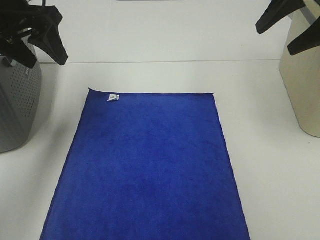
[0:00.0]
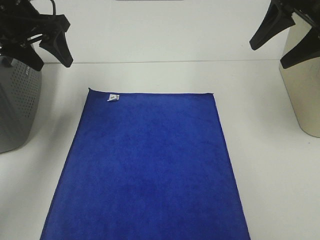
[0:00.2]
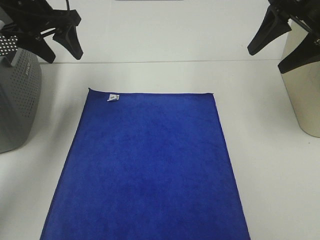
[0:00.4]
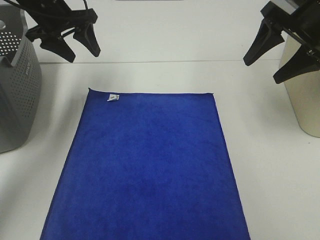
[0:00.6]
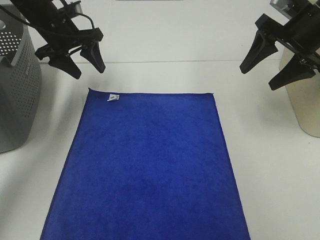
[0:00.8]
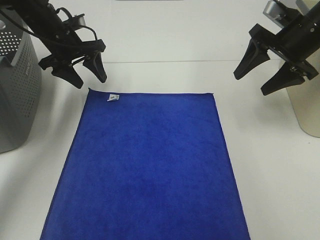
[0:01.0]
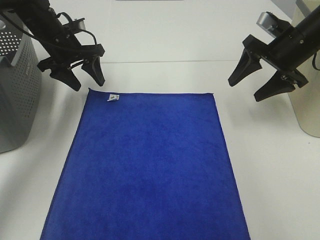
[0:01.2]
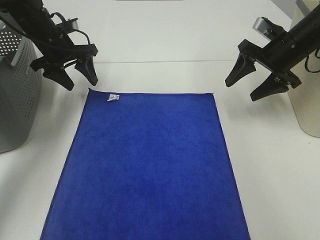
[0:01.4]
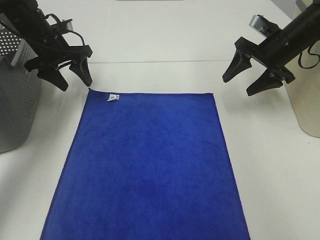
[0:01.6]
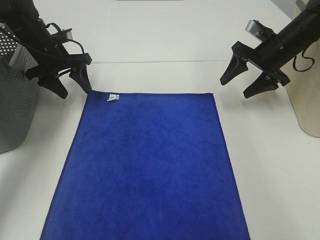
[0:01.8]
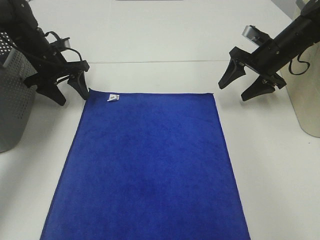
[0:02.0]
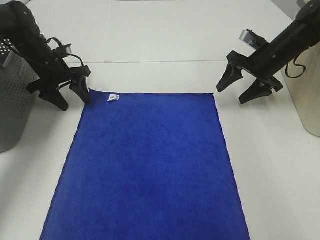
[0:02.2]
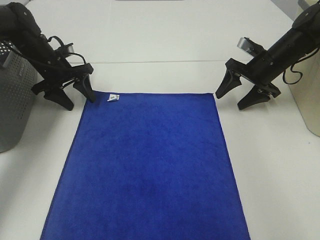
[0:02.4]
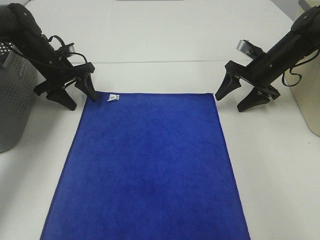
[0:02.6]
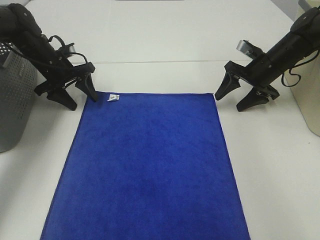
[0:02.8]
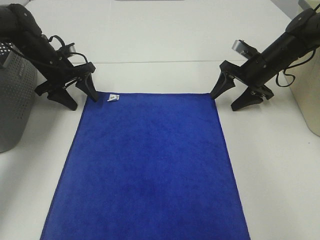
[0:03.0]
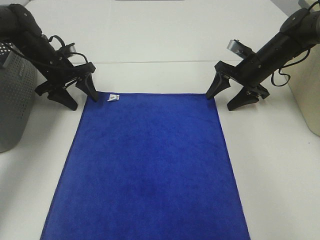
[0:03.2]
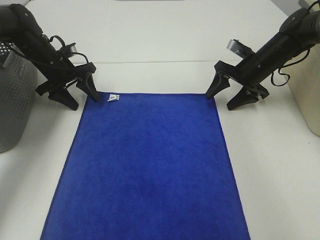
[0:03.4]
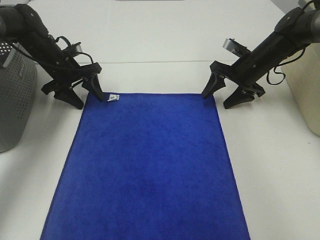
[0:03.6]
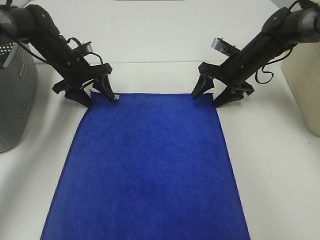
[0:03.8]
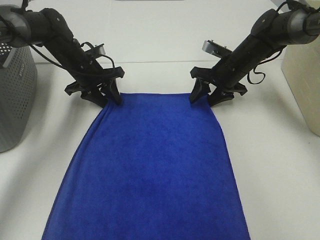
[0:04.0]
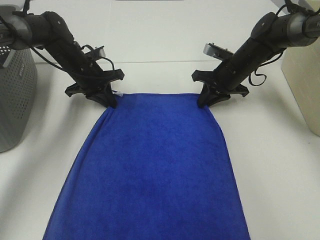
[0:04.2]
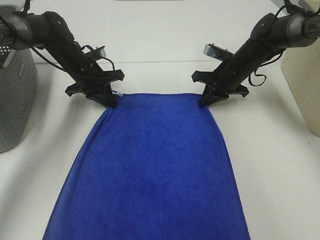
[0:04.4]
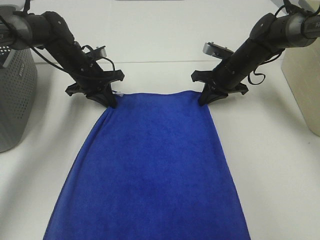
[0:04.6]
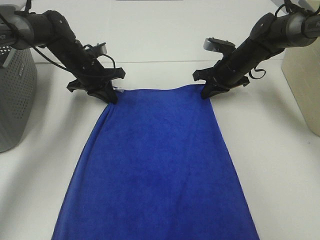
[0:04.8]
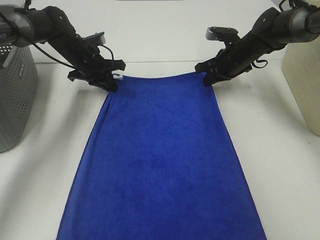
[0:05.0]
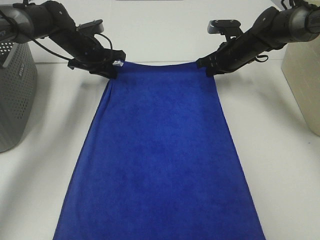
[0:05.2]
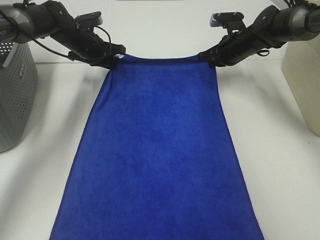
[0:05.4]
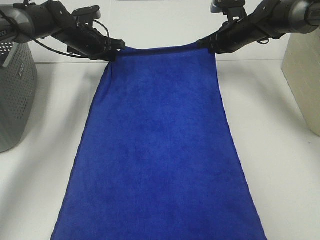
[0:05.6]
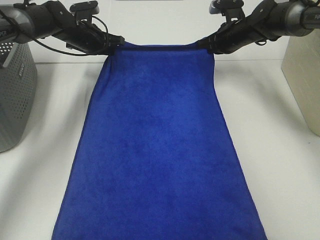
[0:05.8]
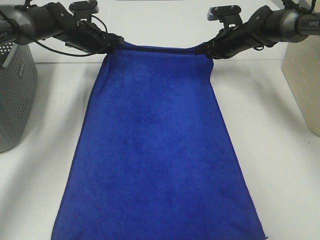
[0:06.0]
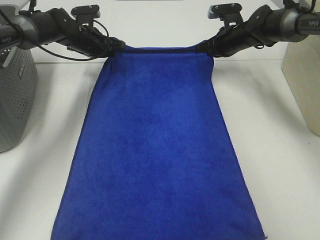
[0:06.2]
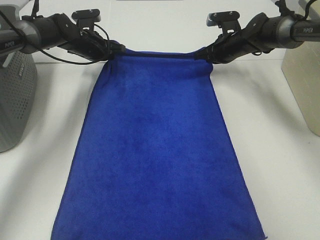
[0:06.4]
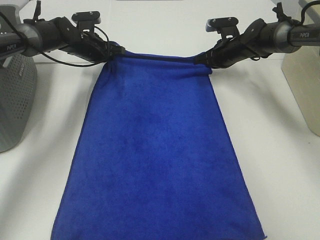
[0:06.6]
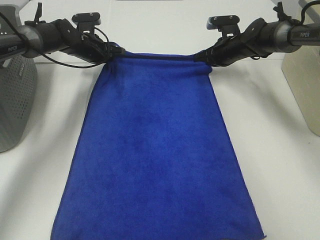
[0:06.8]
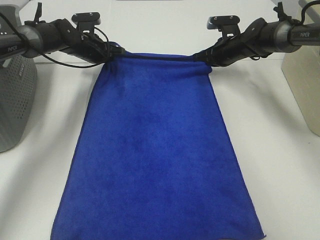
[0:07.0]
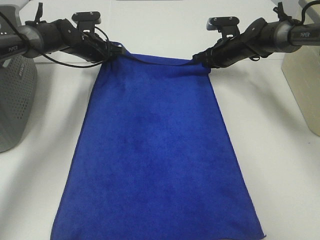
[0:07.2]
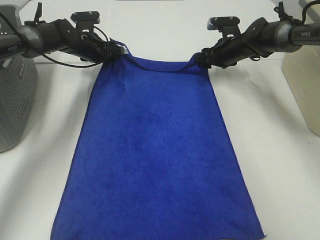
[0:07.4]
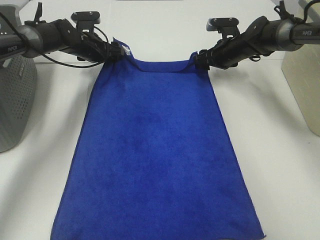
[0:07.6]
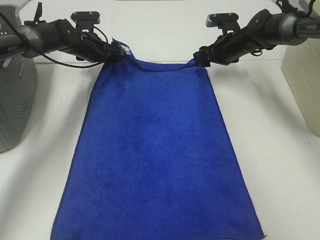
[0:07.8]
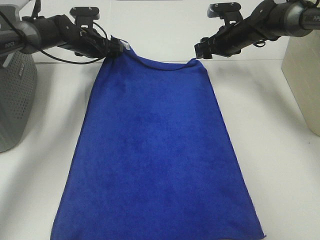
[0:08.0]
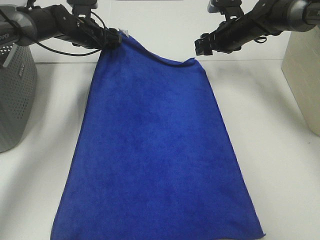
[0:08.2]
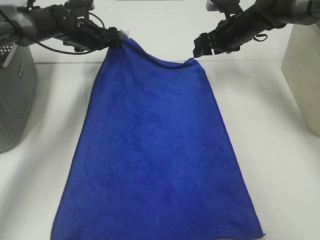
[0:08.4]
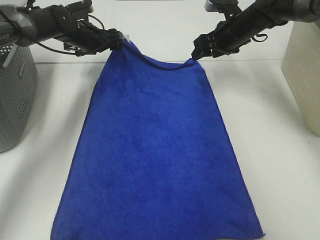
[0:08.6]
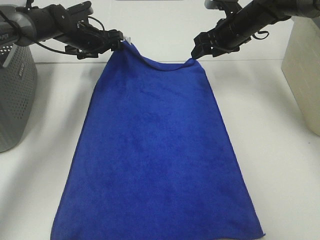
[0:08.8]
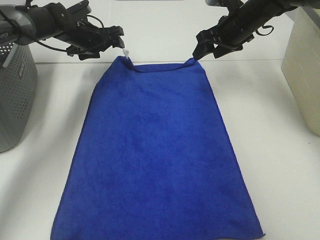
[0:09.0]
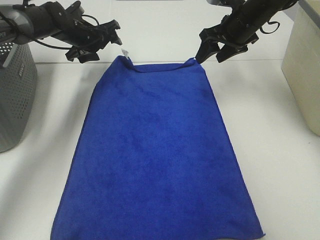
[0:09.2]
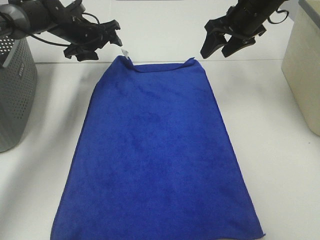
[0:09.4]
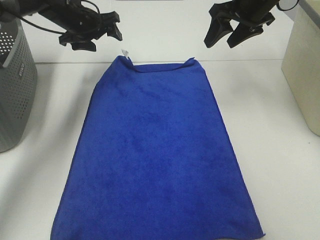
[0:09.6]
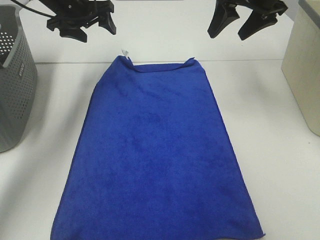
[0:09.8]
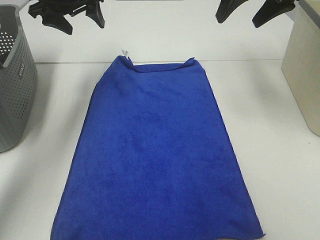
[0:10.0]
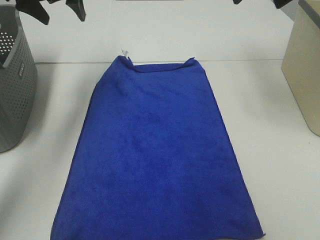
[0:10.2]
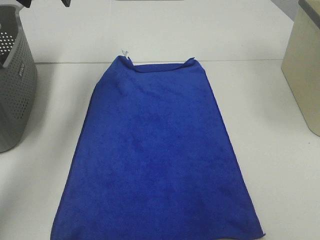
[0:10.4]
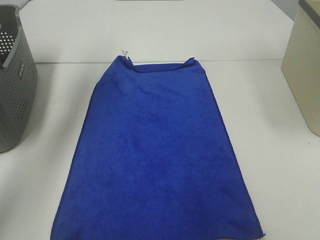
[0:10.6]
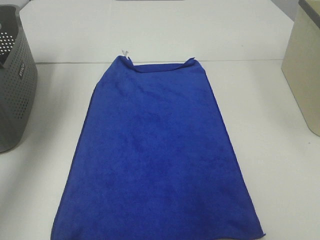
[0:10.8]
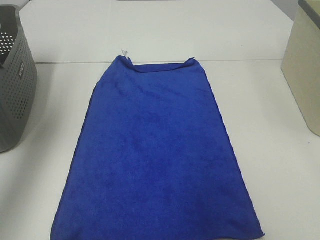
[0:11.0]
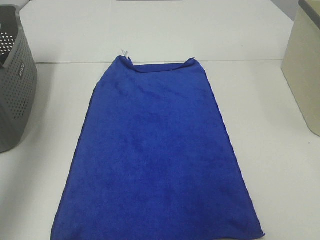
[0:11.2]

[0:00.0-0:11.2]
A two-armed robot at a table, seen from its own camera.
Task of the whole recording: Remove the towel and place it.
Step, 0:00.0 to 0:02.4: Left hand:adjust the blue towel.
Step, 0:00.0 to 0:02.4: Right hand:adjust the blue towel.
0:00.0 to 0:01.6: The grippers both shift downward and forward by approximately 20 cm.
0:01.6 to 0:03.2: The grippers both shift downward by about 5 cm.
0:03.2 to 0:04.8: The right gripper moves about 5 cm, and closes up, while the left gripper heads to the right, covering roughly 5 cm, and closes up.
0:04.8 to 0:06.4: Both grippers move forward, approximately 5 cm.
0:06.4 to 0:08.0: The right gripper opens its fingers. The left gripper opens.
0:08.0 to 0:09.6: The left gripper goes about 10 cm upward. The right gripper moves upward and backward, about 15 cm.
0:09.6 to 0:11.2: Both grippers move backward and upward, some 40 cm.

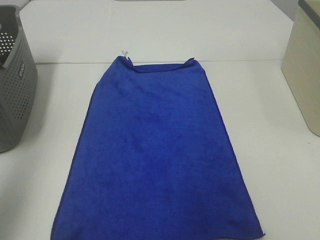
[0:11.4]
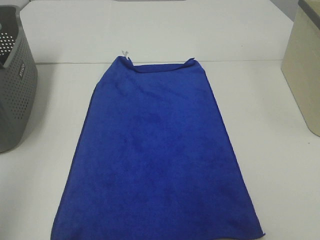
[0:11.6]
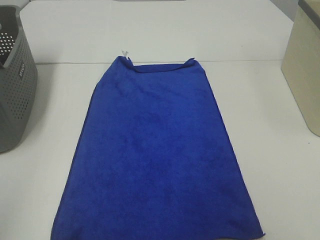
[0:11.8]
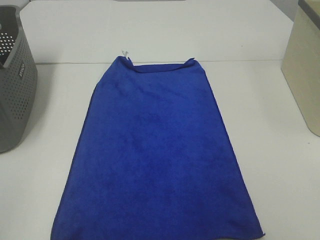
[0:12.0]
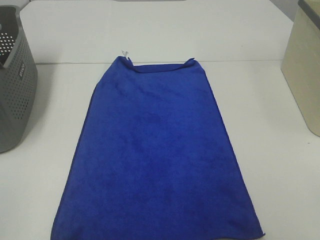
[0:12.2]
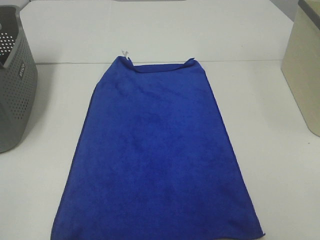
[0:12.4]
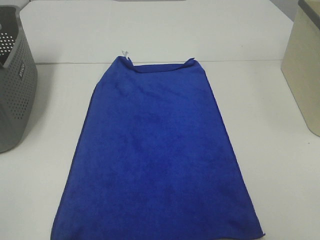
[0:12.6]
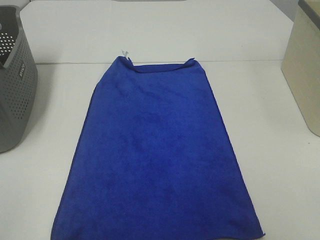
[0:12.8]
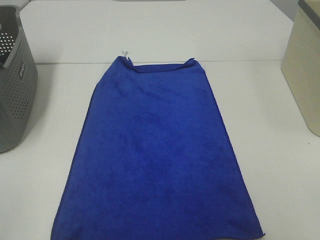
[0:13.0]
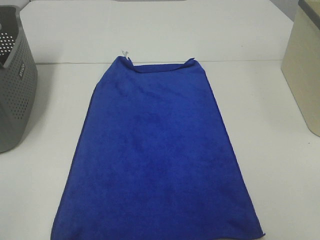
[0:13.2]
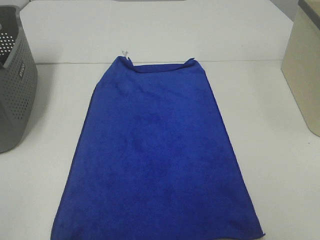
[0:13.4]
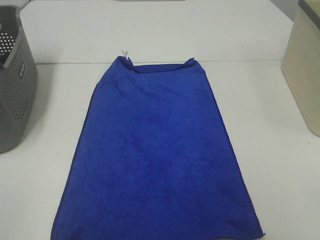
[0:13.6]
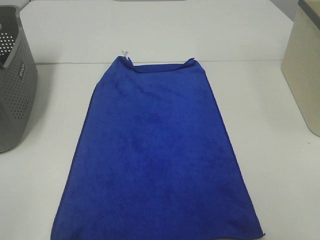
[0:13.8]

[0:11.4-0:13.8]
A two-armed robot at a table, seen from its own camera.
Task of the whole recording: Remove the towel and place it.
0:11.4 to 0:12.6: The left gripper is displaced backward and downward by some 20 cm.

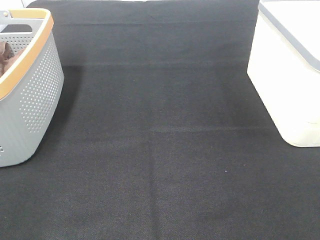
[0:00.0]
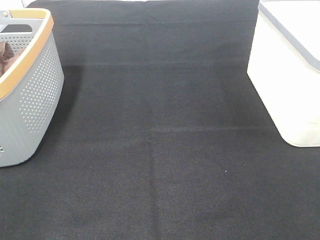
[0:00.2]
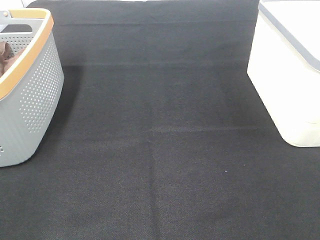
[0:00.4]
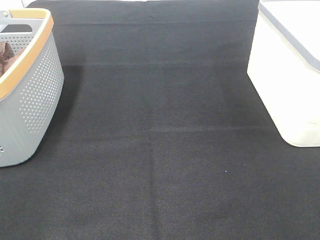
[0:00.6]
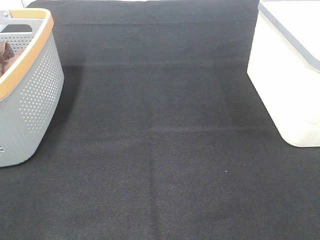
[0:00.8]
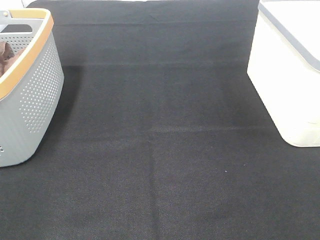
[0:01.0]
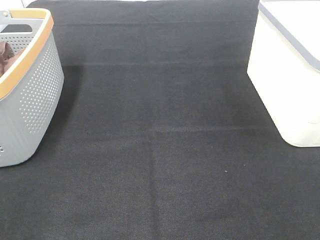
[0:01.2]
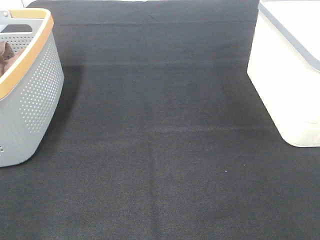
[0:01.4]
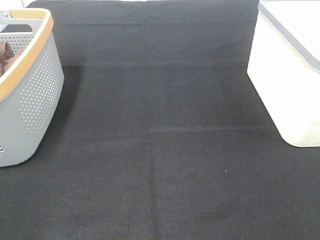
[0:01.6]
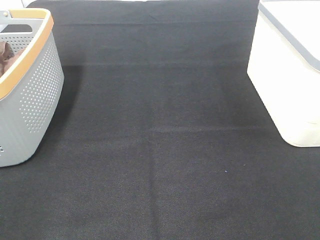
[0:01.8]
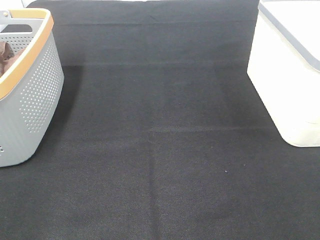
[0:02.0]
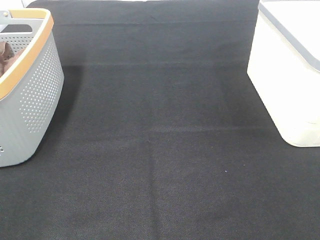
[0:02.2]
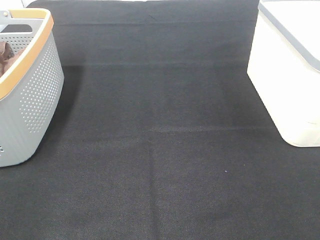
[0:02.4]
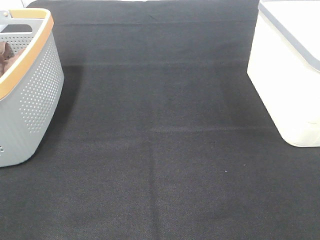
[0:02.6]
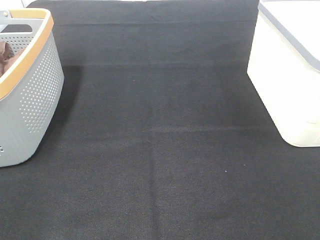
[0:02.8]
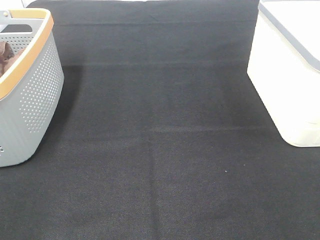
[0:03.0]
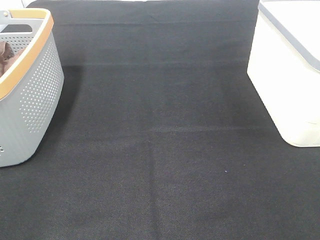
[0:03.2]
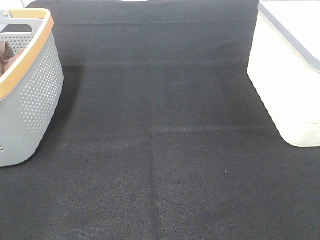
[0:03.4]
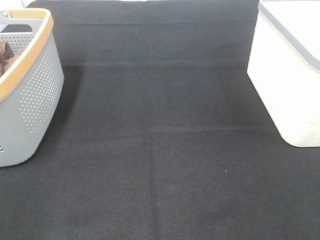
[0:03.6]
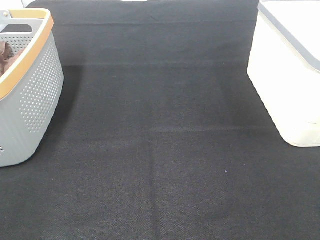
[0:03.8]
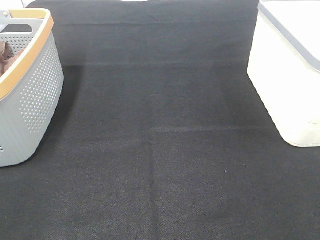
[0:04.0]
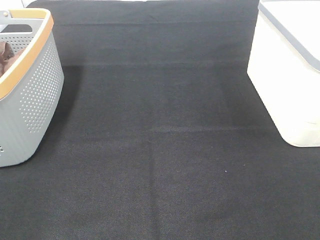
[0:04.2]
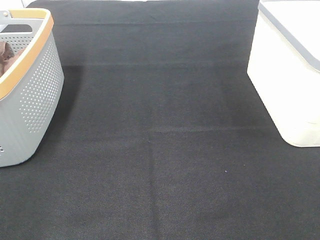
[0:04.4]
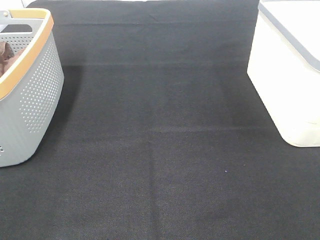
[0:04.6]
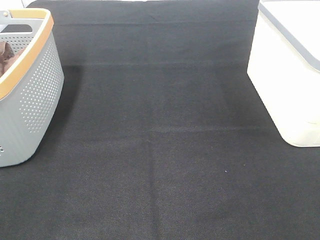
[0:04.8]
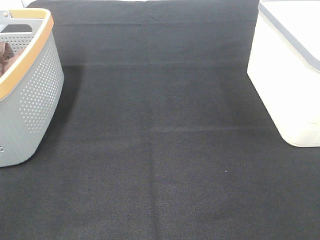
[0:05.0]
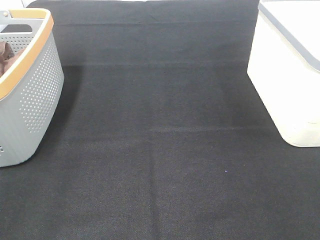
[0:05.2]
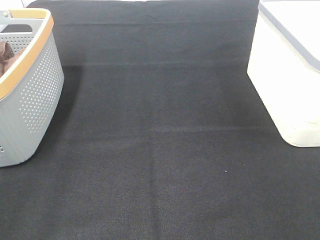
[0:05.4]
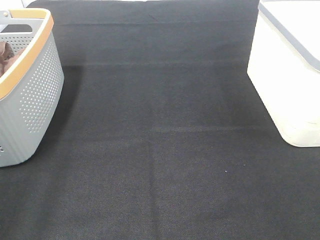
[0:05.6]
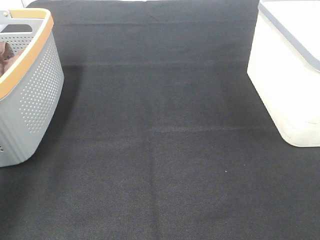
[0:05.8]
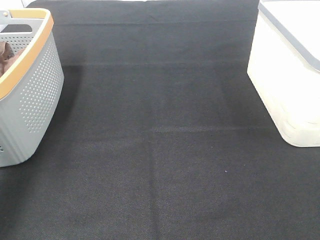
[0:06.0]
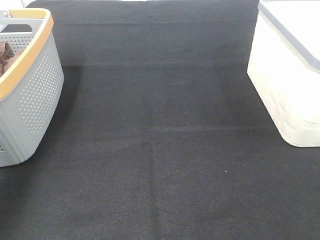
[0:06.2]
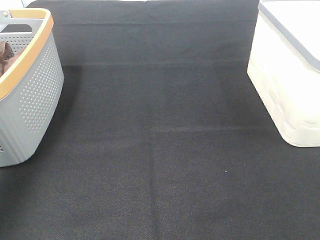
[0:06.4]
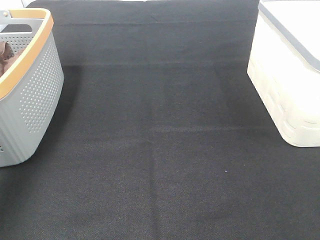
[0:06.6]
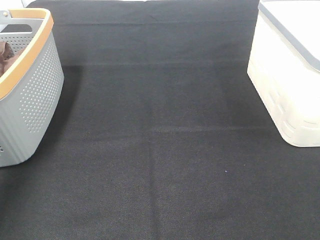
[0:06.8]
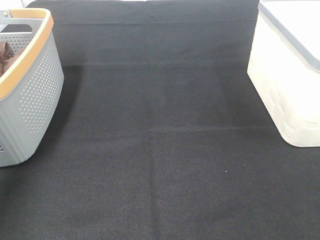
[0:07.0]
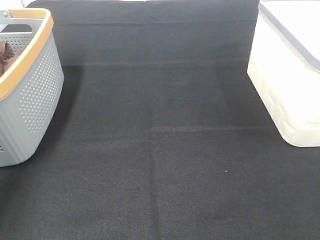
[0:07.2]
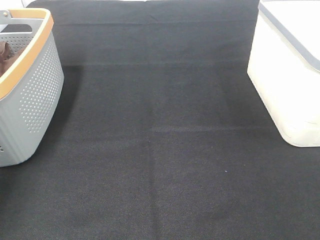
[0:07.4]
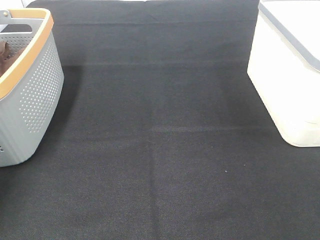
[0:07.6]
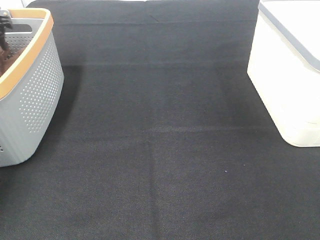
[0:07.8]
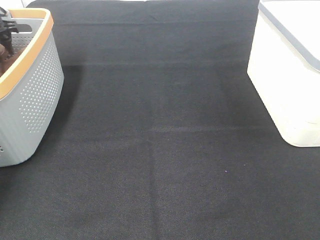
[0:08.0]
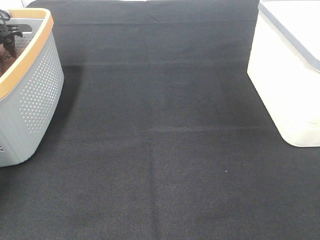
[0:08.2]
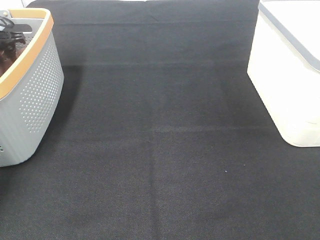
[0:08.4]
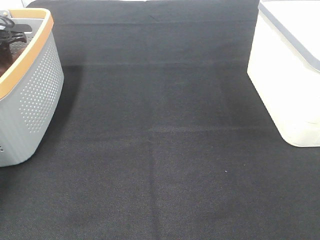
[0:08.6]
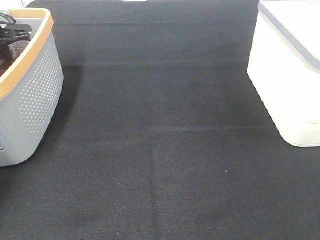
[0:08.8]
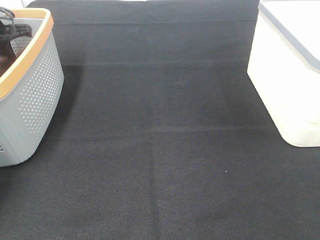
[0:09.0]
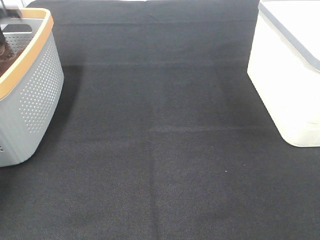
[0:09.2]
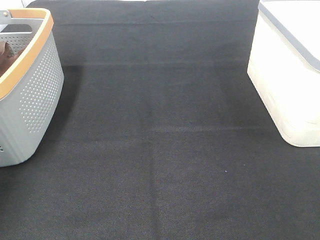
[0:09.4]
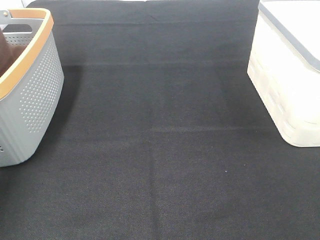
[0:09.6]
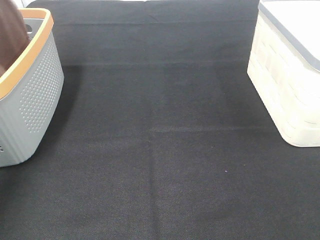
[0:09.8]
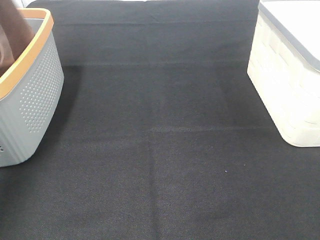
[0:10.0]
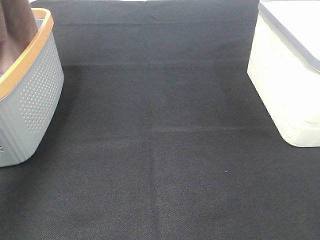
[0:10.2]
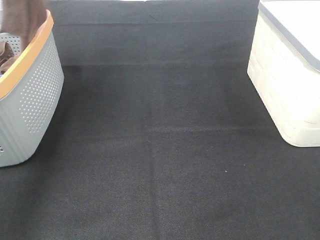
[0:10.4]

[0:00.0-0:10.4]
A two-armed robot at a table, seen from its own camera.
Task of the whole recording: Remove the towel and place it.
0:00.0 to 0:04.4: The two grippers keep their place.
0:04.4 to 0:06.0: The left gripper goes some 25 cm forward.
0:06.0 to 0:07.4: The left gripper moves forward, some 20 cm.
0:07.4 to 0:09.0: The left gripper is displaced downward by roughly 10 cm, and closes.
0:09.0 to 0:10.4: The left gripper moves upward, backward and to the right, some 40 cm.
